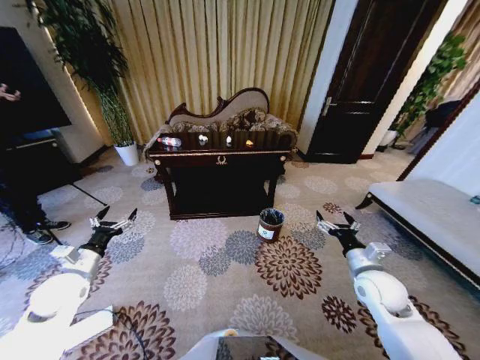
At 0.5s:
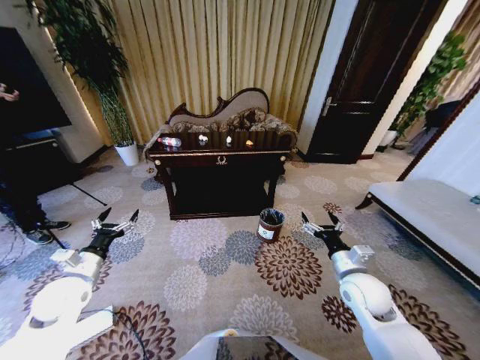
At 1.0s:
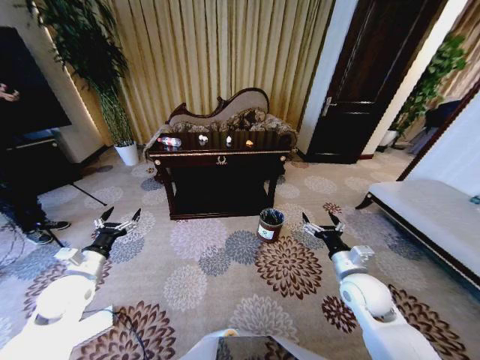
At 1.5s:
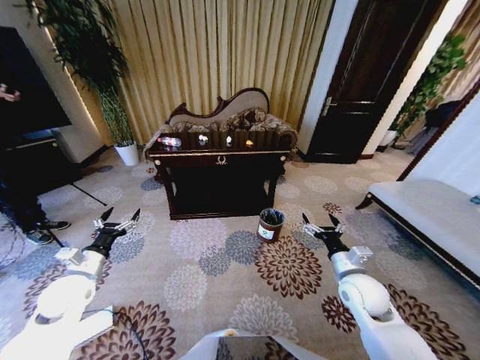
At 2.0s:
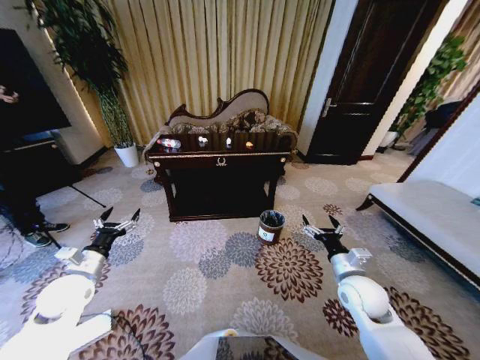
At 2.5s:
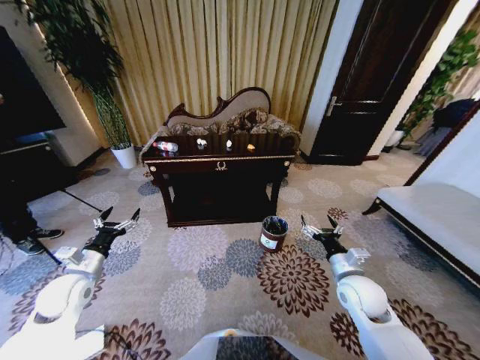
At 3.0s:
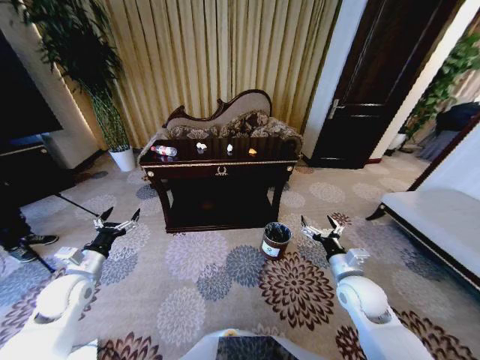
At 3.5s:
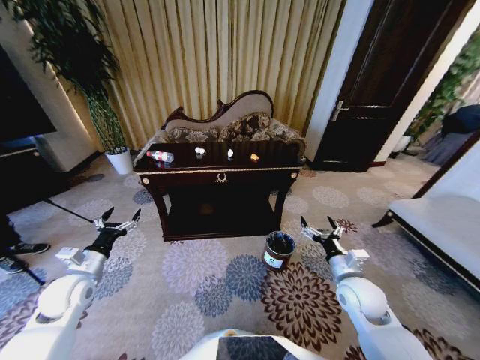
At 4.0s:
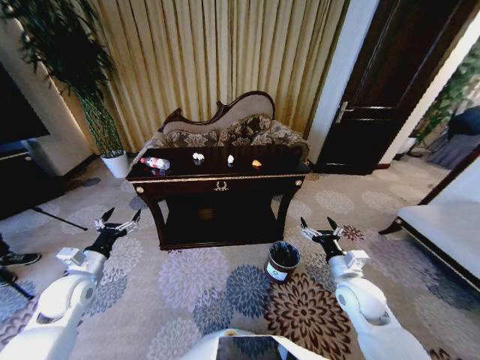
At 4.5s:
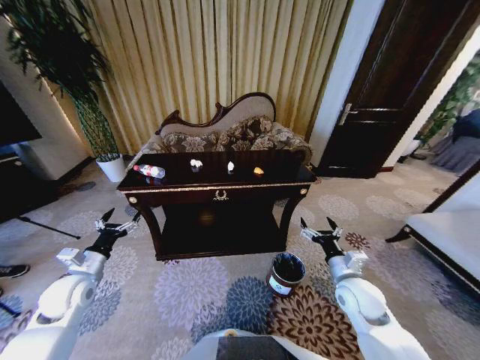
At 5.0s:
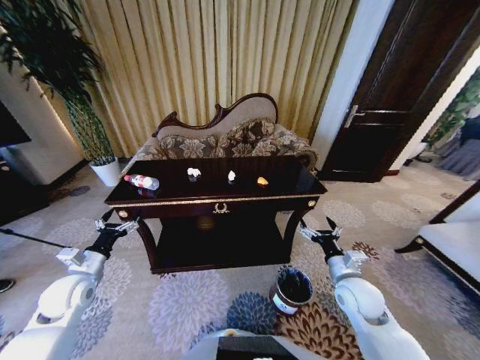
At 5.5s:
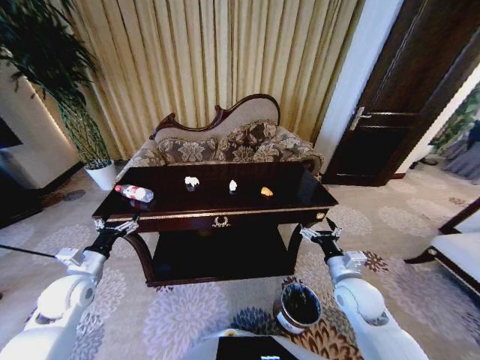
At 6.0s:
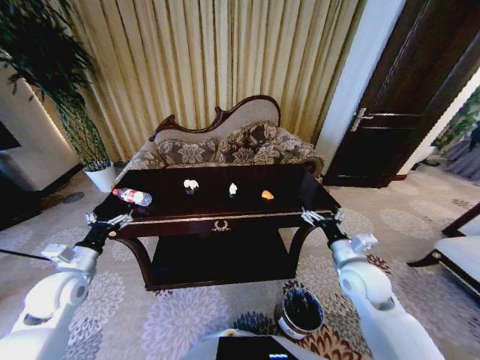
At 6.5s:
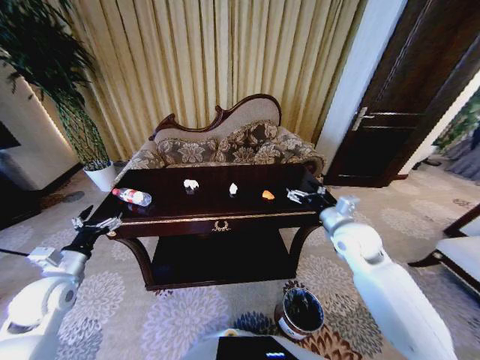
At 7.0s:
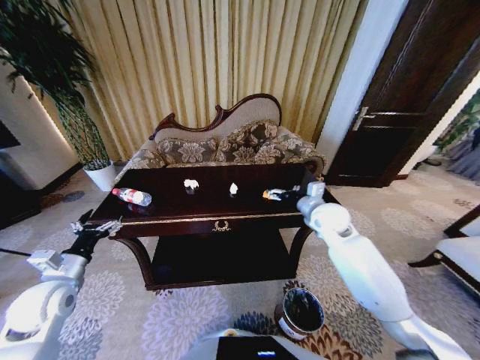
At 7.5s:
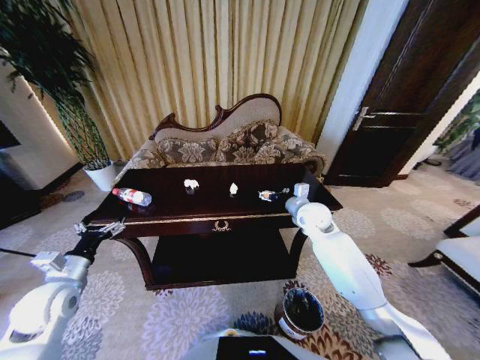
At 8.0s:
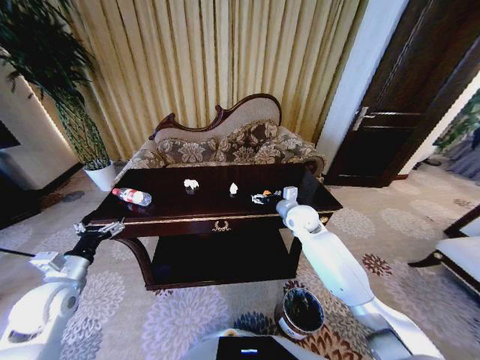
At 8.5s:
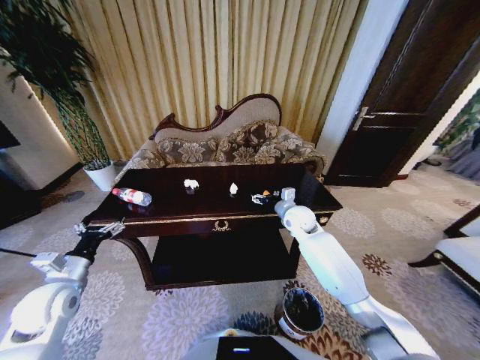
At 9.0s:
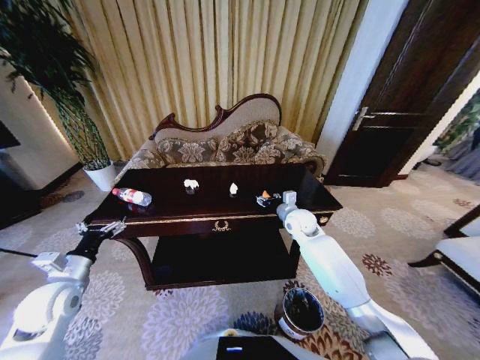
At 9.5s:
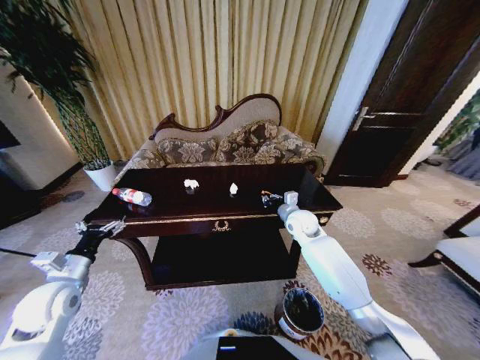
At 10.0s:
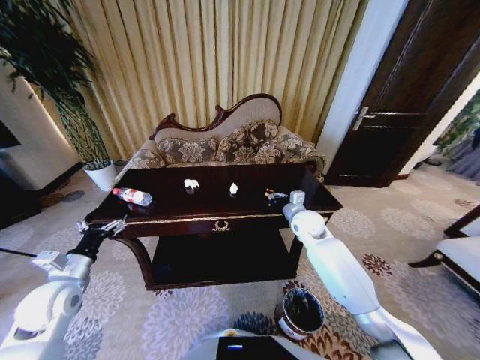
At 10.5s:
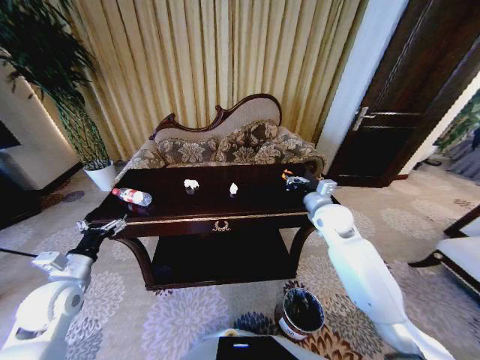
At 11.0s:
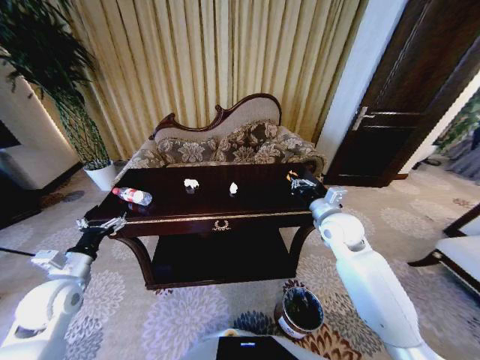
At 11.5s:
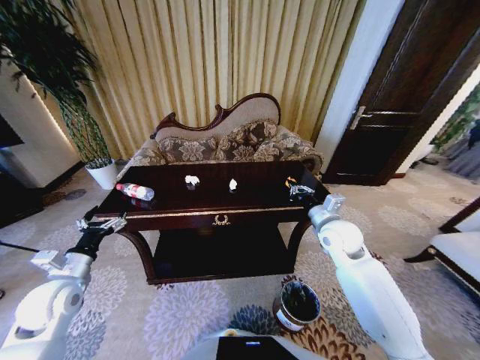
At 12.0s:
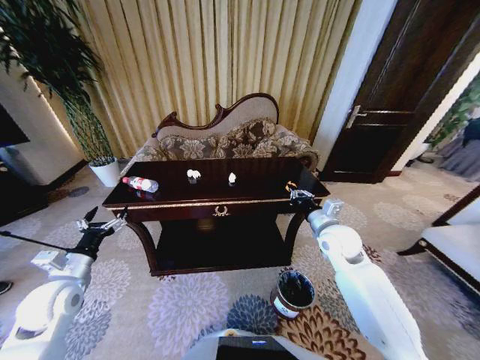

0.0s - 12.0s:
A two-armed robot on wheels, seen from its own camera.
Task of the whole recording: Move to the front of the table and place the trash on the table into the trash bin.
6.0s - 8.0s: The right gripper heads forward and to the left, covering some 20 cm.
8.0s - 10.0s: The right gripper closes up.
10.0s - 12.0s: The right gripper travels backward by approximately 10 cm.

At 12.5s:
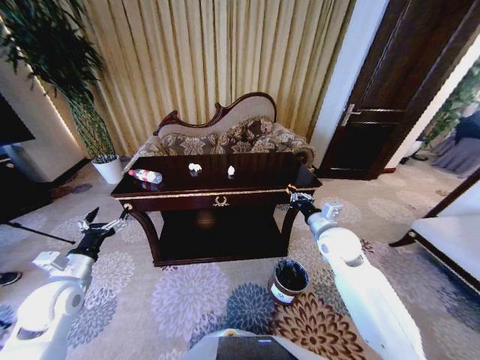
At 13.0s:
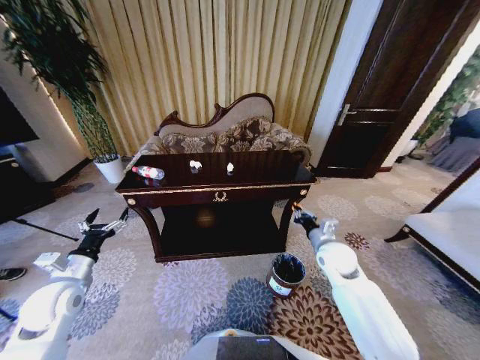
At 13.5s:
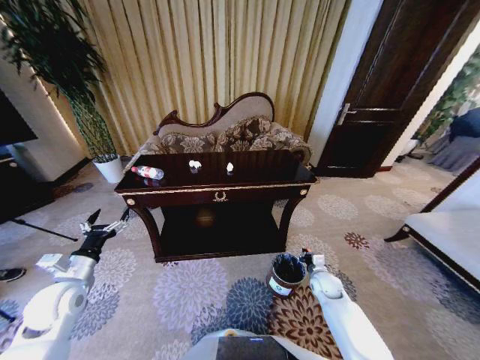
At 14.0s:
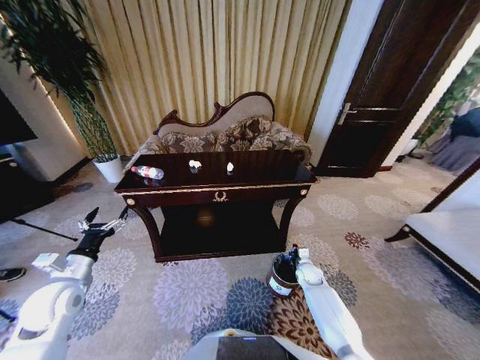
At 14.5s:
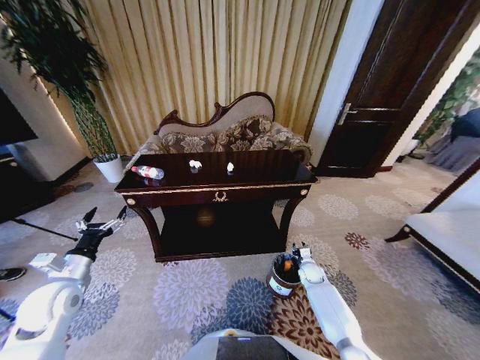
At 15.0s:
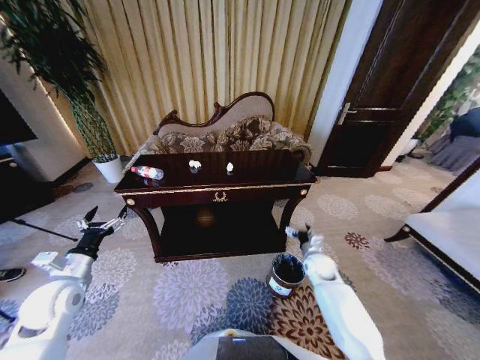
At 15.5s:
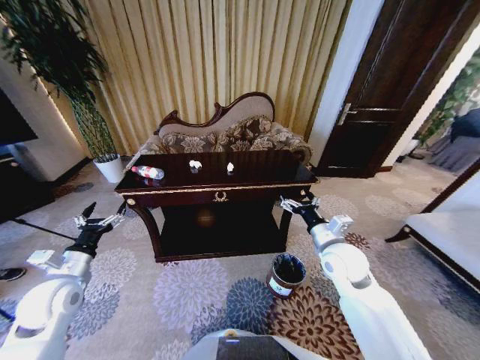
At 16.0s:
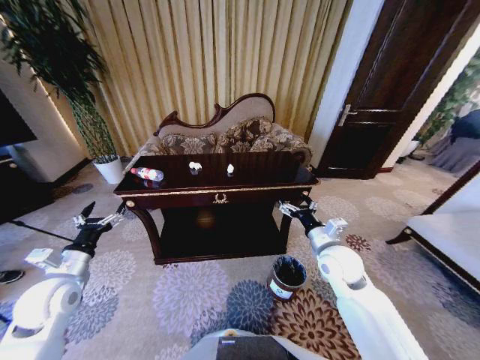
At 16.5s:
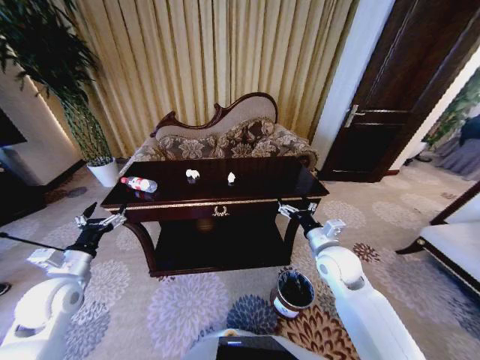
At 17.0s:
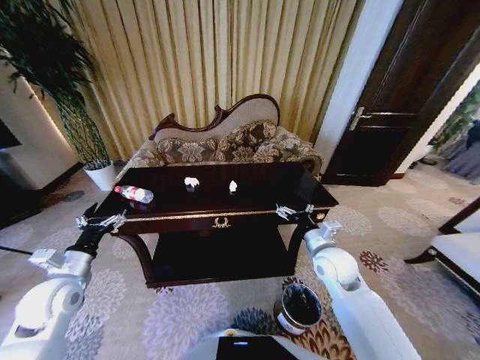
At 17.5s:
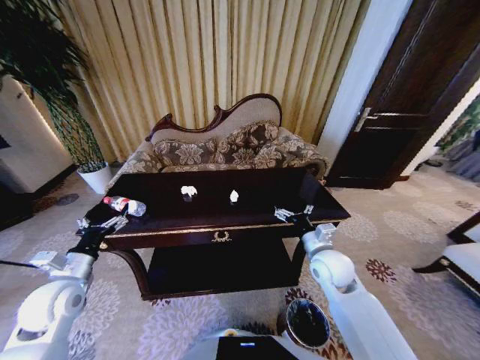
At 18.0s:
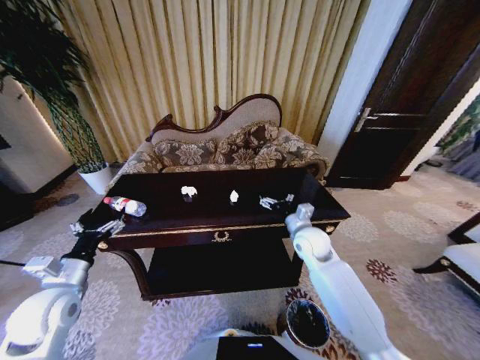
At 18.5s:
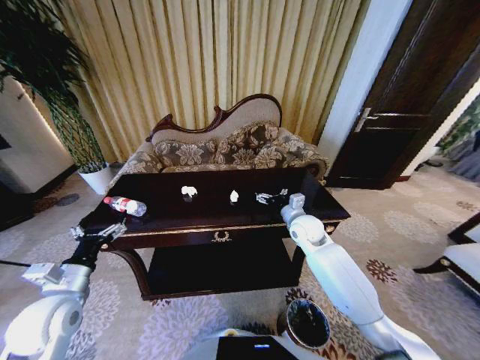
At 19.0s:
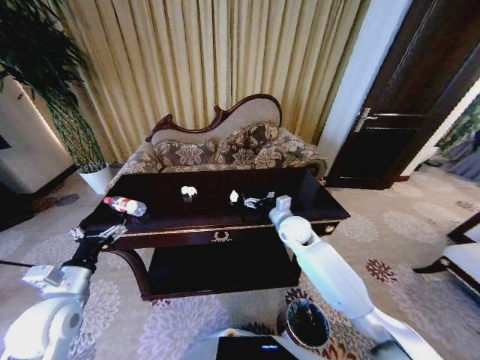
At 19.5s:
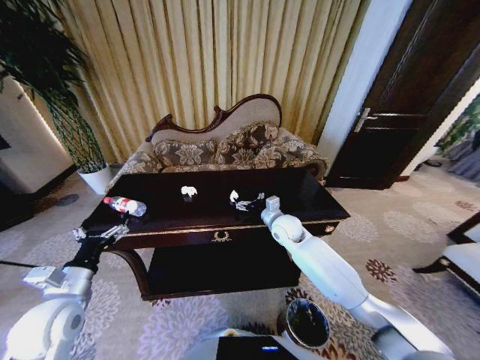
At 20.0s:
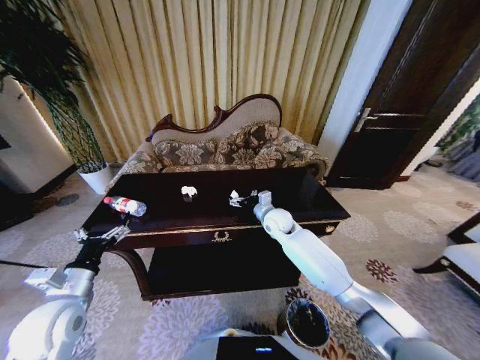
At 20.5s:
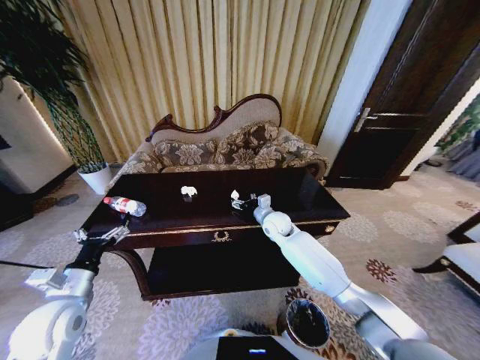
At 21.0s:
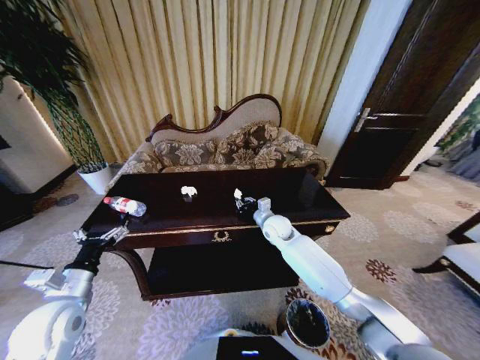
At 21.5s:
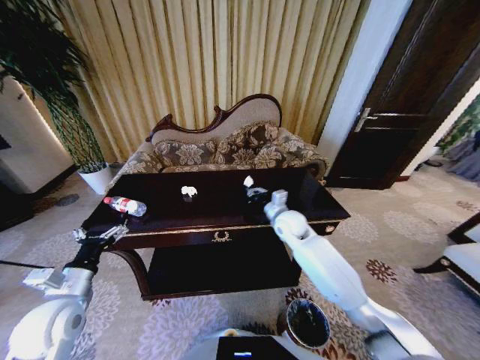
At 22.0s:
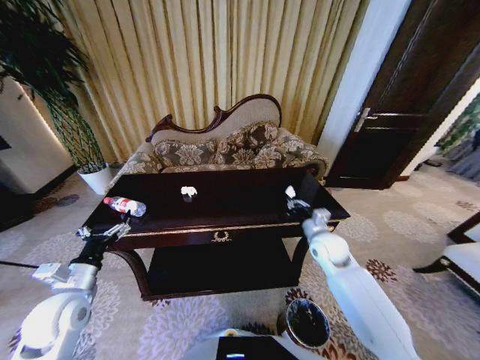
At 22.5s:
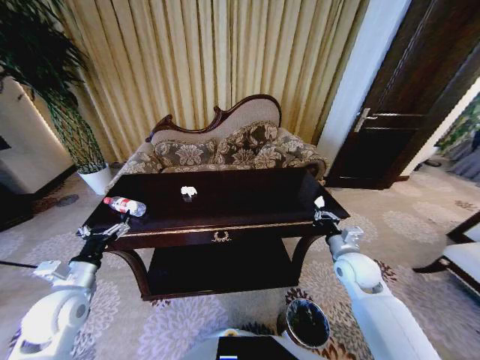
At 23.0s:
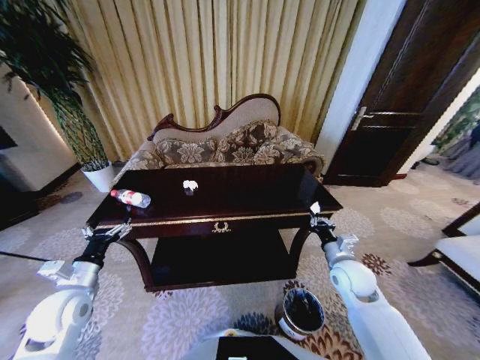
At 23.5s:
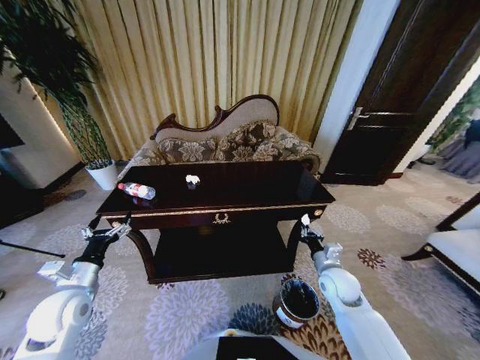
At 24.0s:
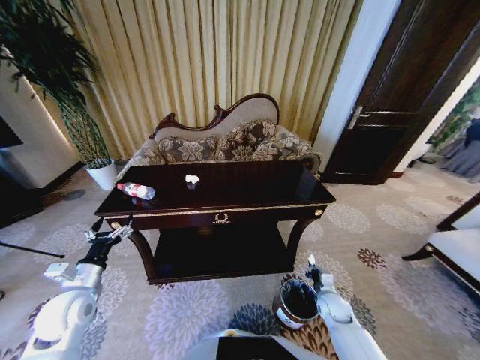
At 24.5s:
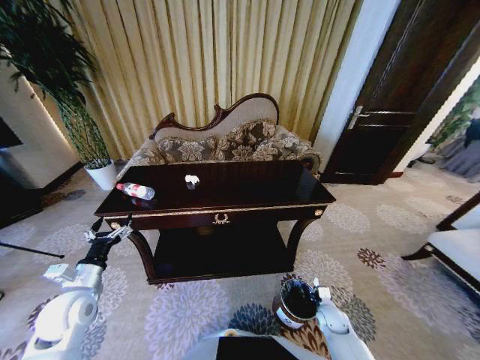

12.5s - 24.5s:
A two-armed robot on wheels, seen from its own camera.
Task of the whole recording: Move to the front of the table and place the trash on the table into the trash bin.
12.5s - 14.5s: The right gripper goes about 30 cm downward, and opens up.
14.5s - 16.5s: The right gripper heads upward, covering approximately 25 cm, and opens its fingers.
16.5s - 18.5s: The left gripper ends up about 5 cm from where it was; the right gripper heads forward, covering roughly 10 cm.
18.5s - 20.5s: The right gripper shifts some 10 cm to the left.
20.5s - 22.5s: The right gripper goes about 25 cm to the right and backward, and closes.
22.5s - 24.5s: The right gripper goes some 25 cm downward.

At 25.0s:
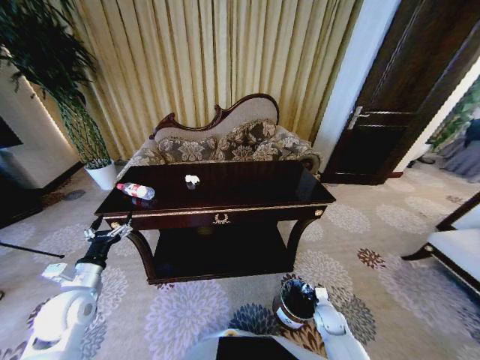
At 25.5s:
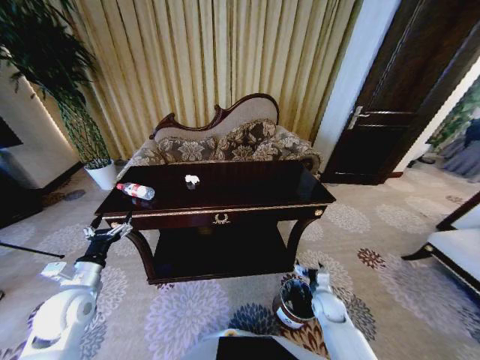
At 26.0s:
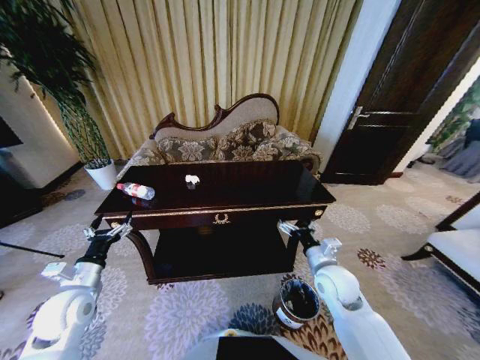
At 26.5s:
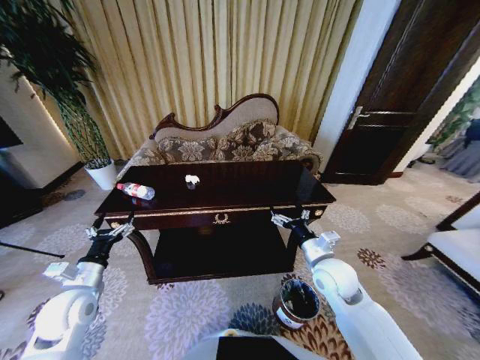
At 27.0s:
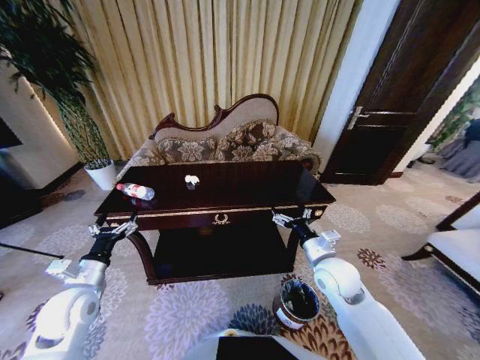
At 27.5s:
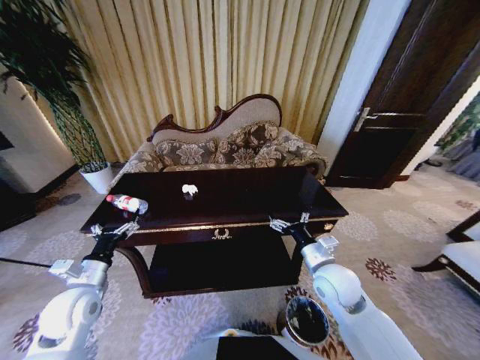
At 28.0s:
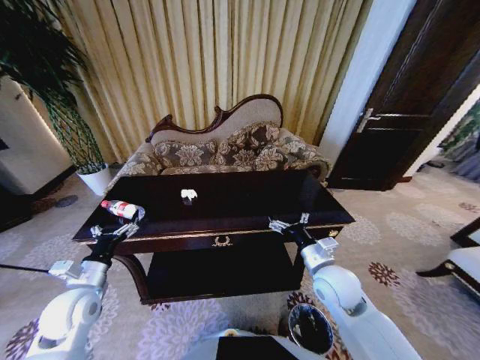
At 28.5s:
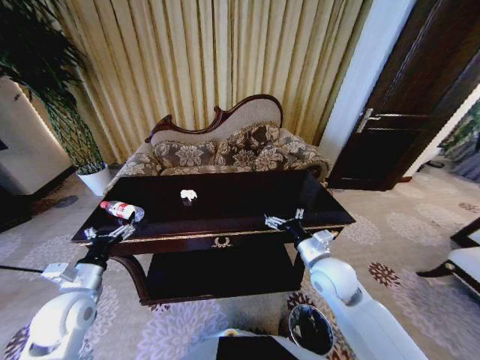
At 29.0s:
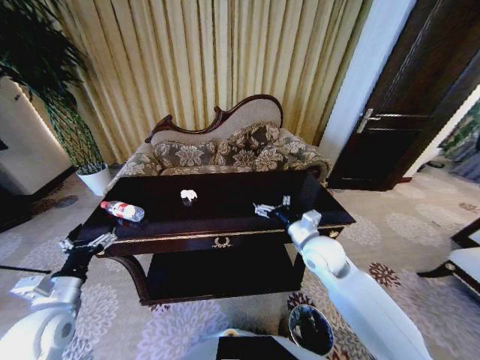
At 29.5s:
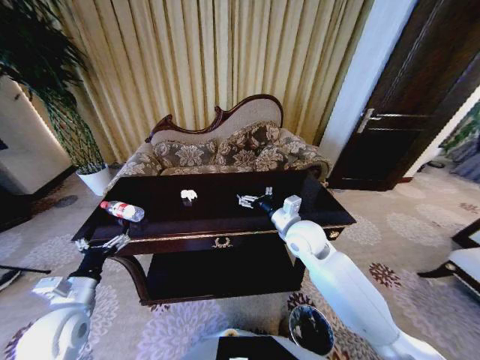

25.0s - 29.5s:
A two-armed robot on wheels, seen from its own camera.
Task of the whole recording: Move to the front of the table and place the trash on the table into the trash bin.
25.0s - 27.0s: The right gripper travels upward by about 30 cm, and opens its fingers.
27.0s - 29.5s: The right gripper goes some 10 cm forward, to the left and upward.
